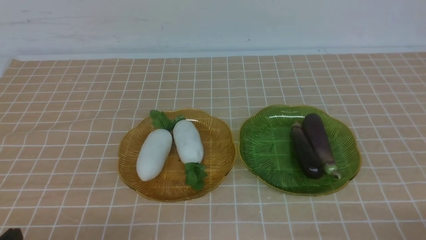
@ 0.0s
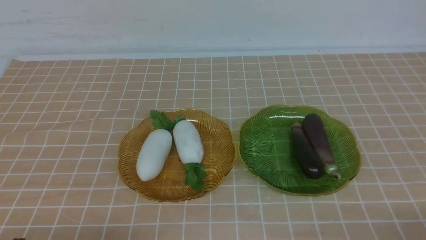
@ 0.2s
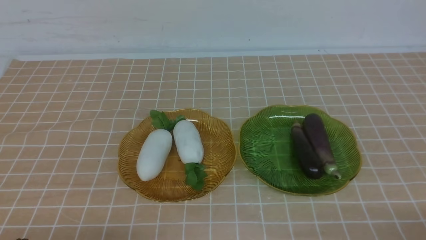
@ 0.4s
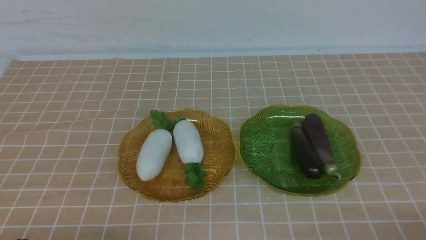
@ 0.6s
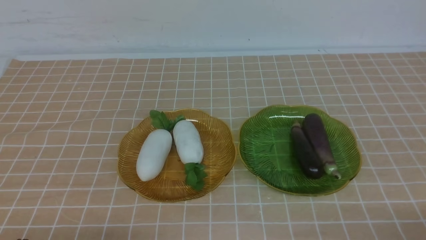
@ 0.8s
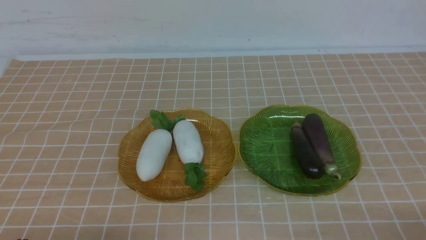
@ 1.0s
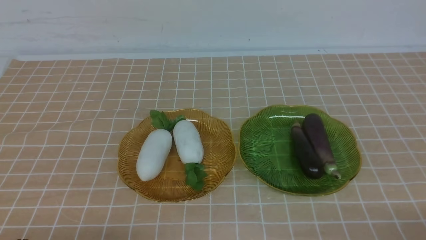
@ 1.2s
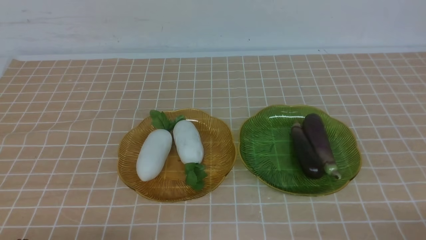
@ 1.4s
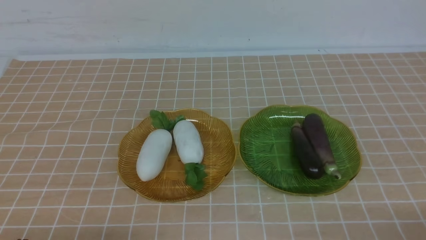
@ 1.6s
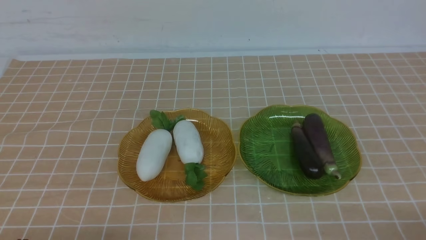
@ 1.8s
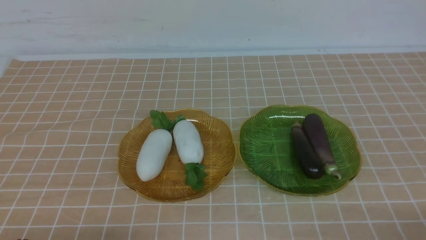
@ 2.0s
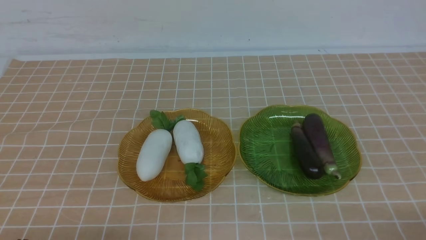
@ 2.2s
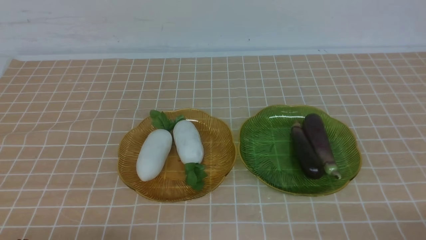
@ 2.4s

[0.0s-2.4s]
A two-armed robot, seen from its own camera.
0.0s to 2.4s: The two grippers keep their place.
